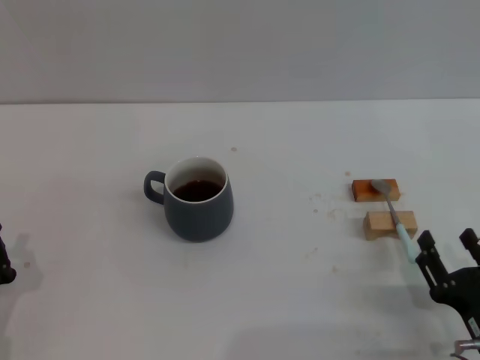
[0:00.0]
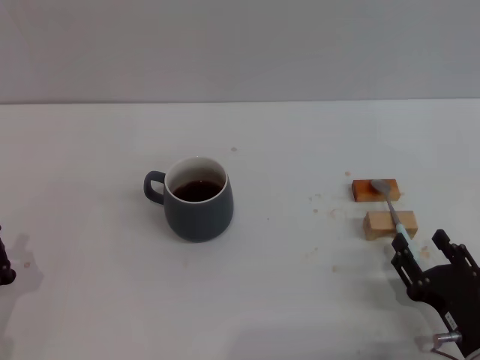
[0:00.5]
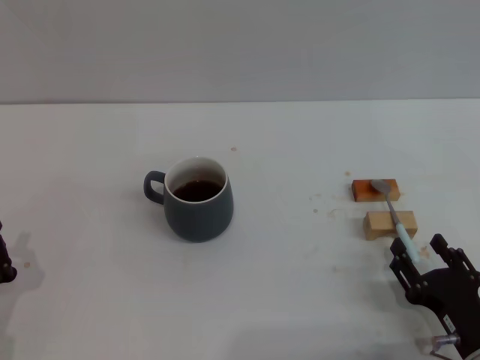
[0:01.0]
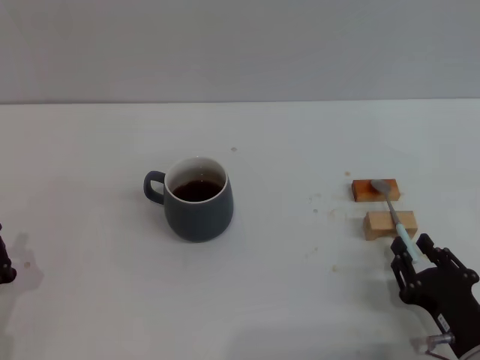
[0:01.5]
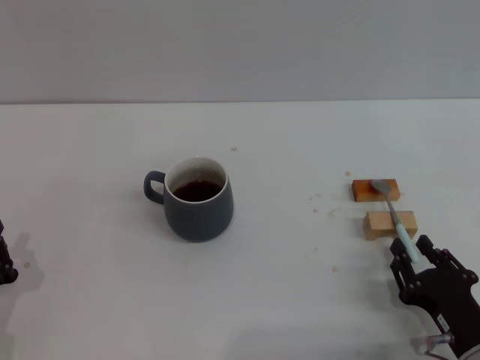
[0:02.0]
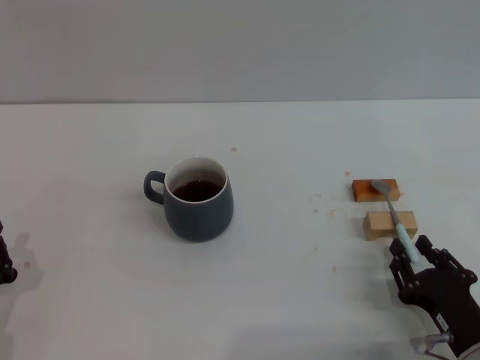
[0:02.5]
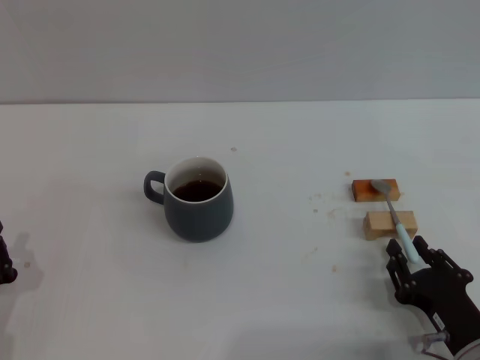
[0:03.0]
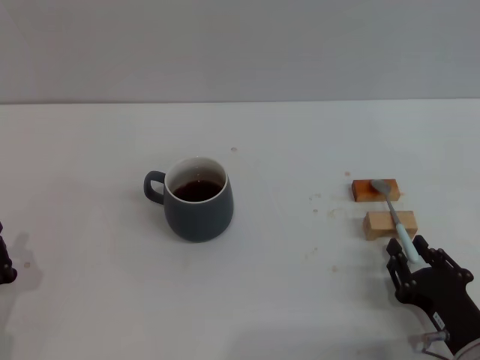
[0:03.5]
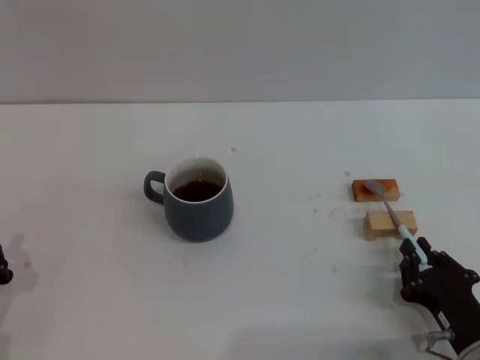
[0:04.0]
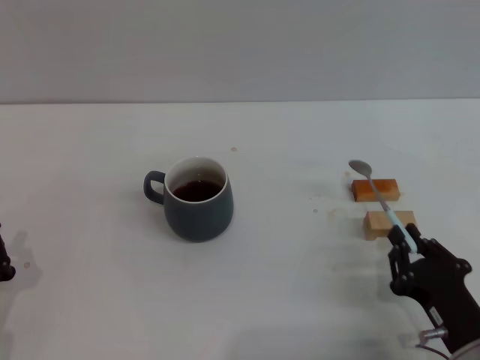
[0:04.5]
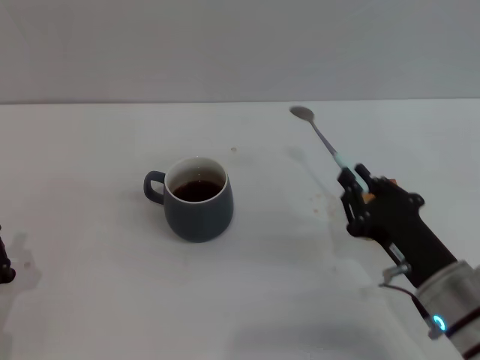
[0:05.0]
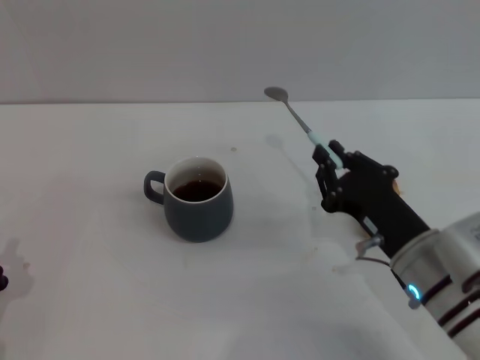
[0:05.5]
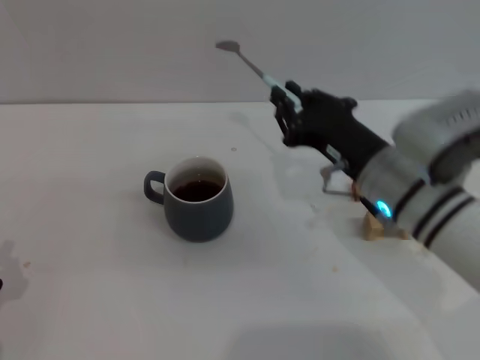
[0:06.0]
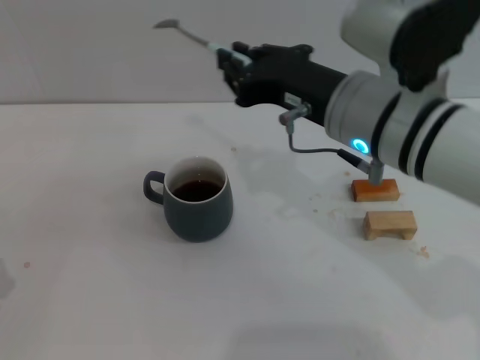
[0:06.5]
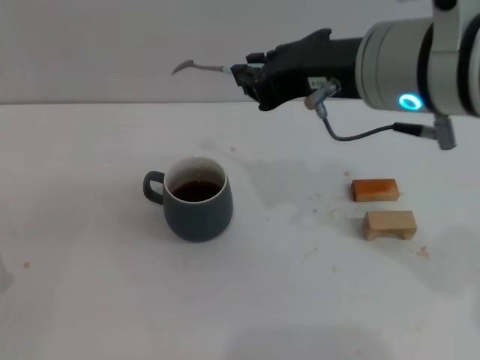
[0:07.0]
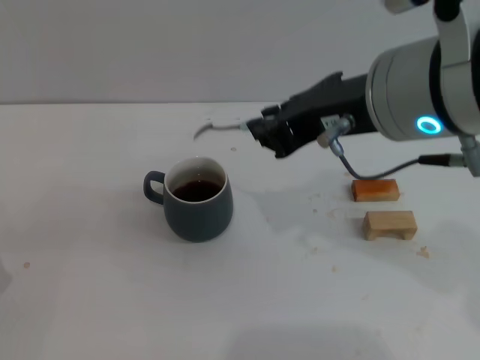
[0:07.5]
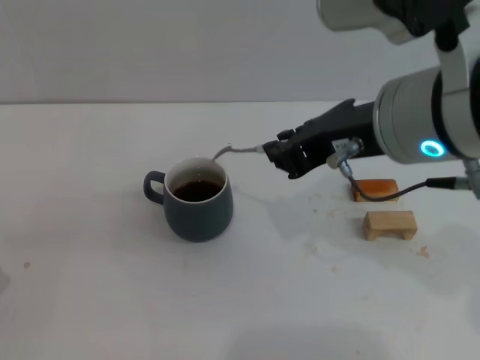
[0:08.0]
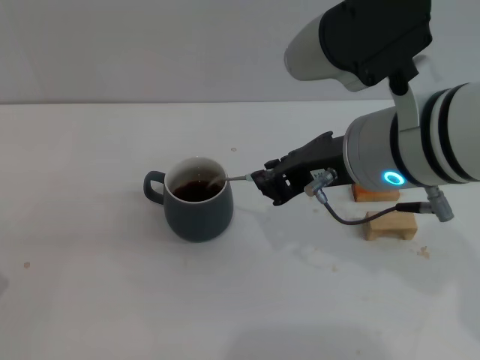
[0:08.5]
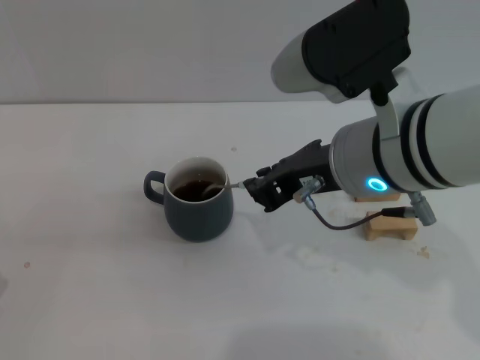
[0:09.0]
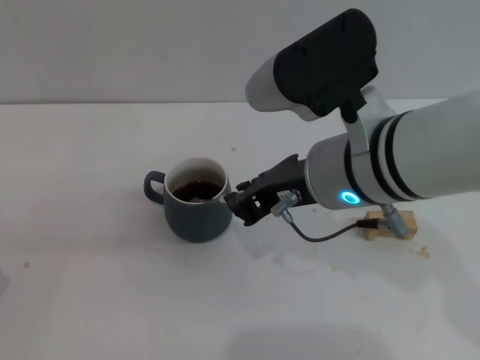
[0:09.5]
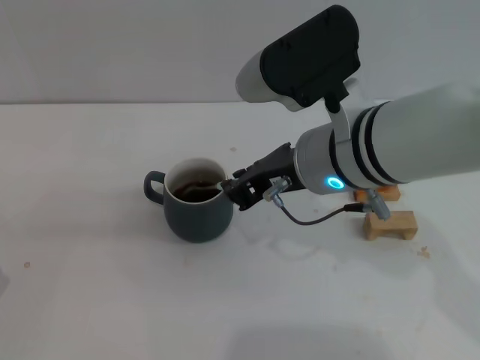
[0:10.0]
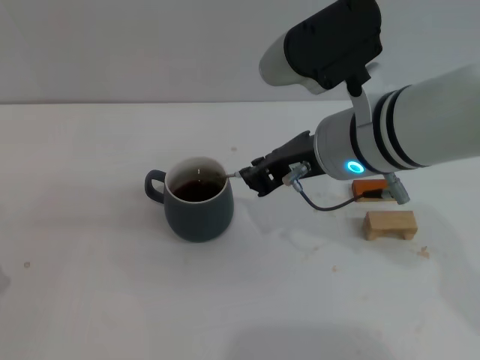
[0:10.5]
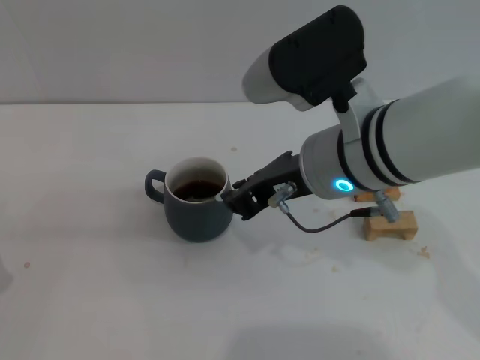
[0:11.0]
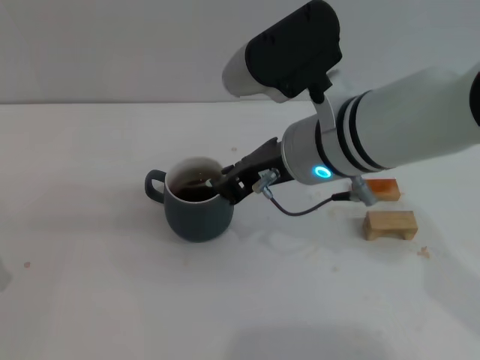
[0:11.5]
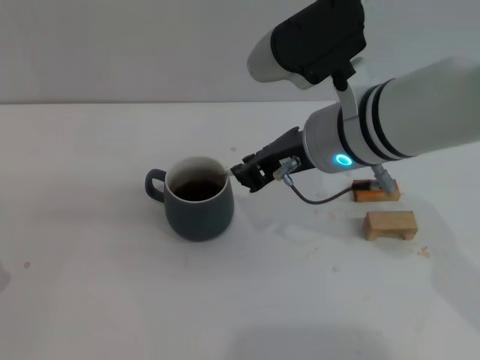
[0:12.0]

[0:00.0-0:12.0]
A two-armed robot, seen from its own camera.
Task of the whole recording: Move the grey cup to the center, lift the blue spoon, stir it three times in the cup, and put the spoon into the cup.
Step, 0:00.0 to 0:04.5: Pick up the spoon with the right gripper.
0:00.0 to 0:02.0: The right gripper closes its fingers.
0:02.0 to 0:04.0: Both grippers stay about where they are.
0:04.0 to 0:06.0: The right gripper moves upward, forward and to the left, roughly 20 cm.
0:06.0 to 0:08.0: The right gripper goes roughly 15 cm upward.
0:08.0 to 0:10.0: The right gripper travels downward by approximately 5 cm.
0:10.0 to 0:12.0: The grippers make only small movements.

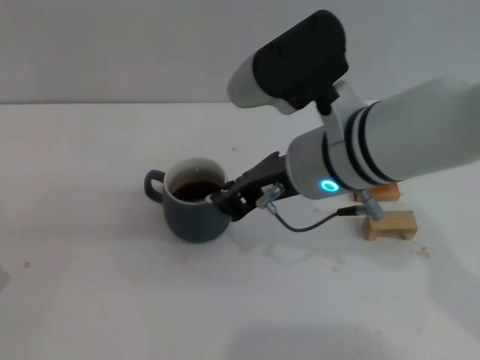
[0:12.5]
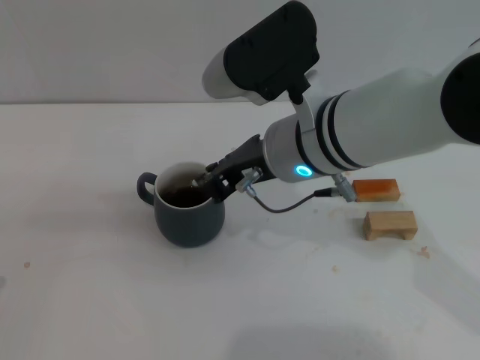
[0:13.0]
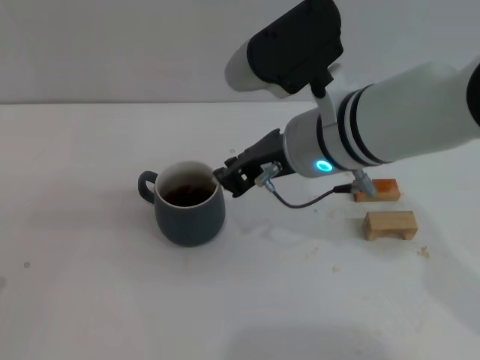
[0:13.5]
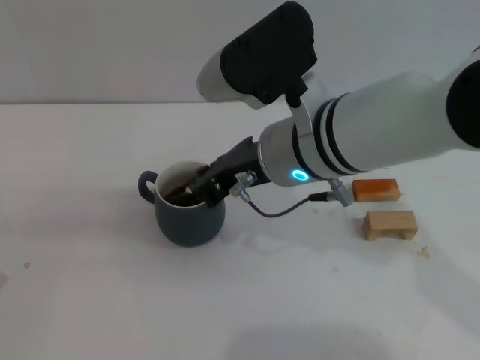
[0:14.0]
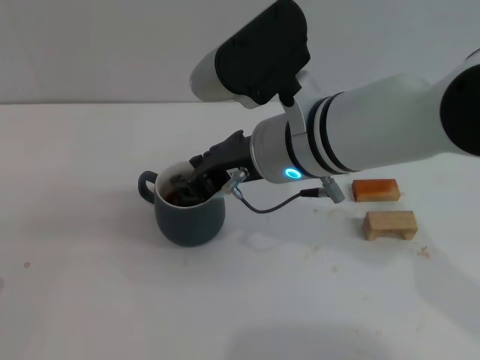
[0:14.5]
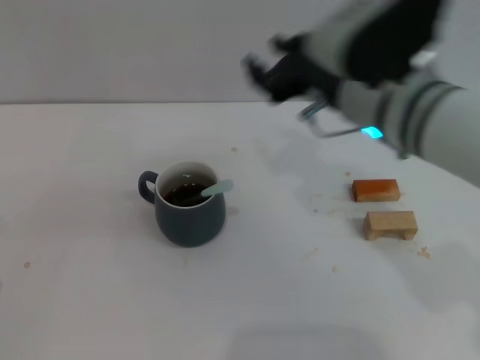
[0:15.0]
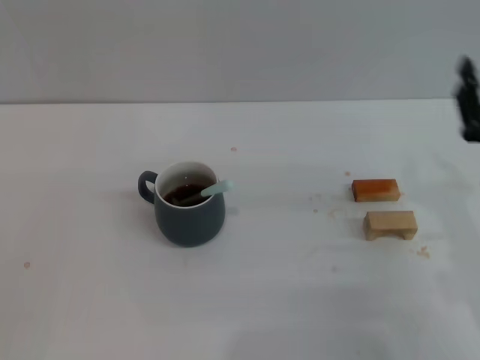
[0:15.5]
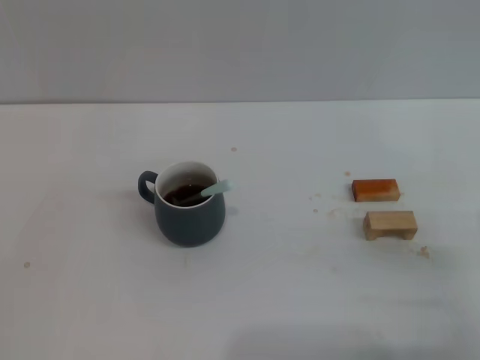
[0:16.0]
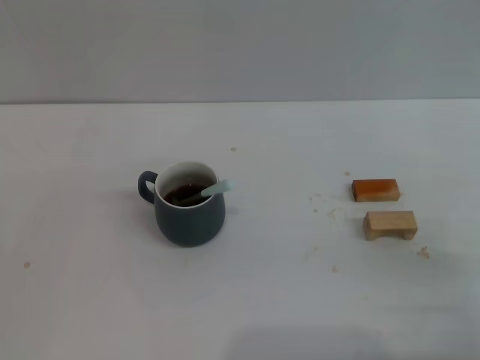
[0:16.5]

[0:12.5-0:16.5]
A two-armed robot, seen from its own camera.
Task of the whole recording: Move the grey cup to the center, lift the blue spoon, stir it three times in the cup, and put the spoon into the cup.
Step, 0:12.5 to 0:14.5: Stir the coffee in the cup with the right gripper.
0:12.5 to 0:14.5: The grippers make only small movements.
0:14.5 to 0:16.5: The right gripper goes about 35 cm to the right, downward and backward, and opens up.
